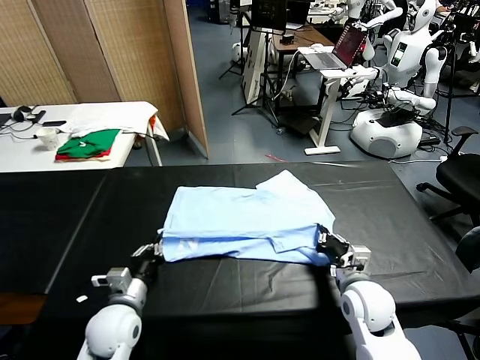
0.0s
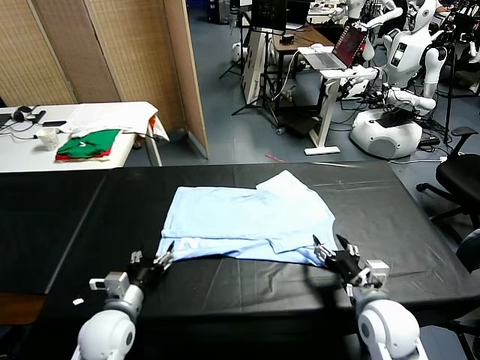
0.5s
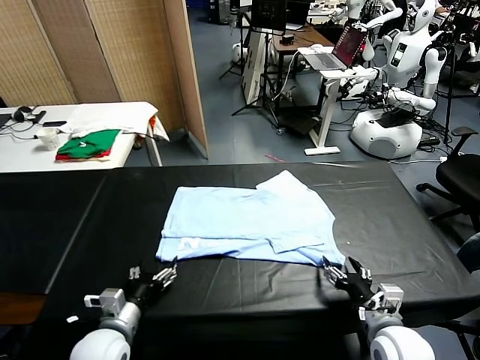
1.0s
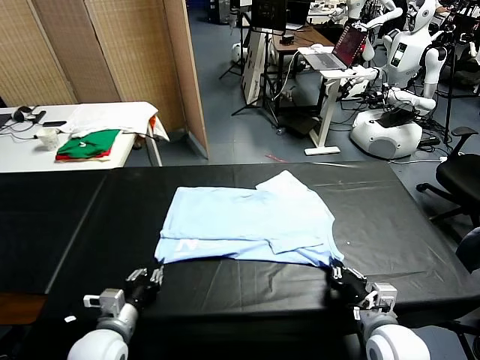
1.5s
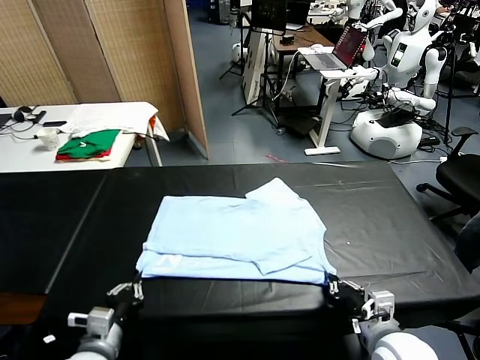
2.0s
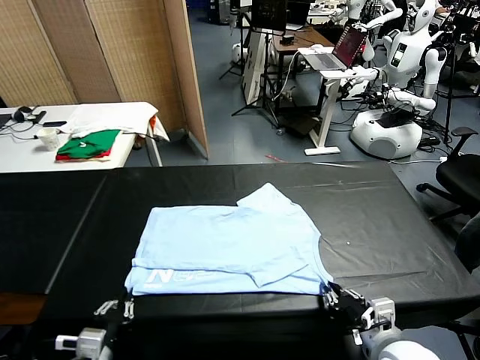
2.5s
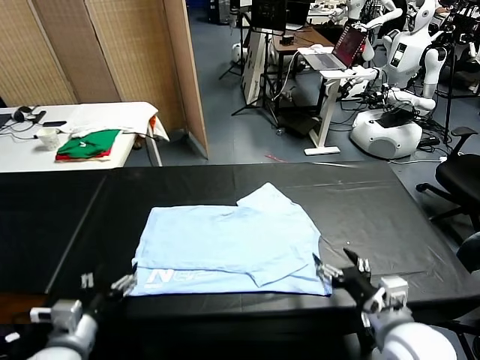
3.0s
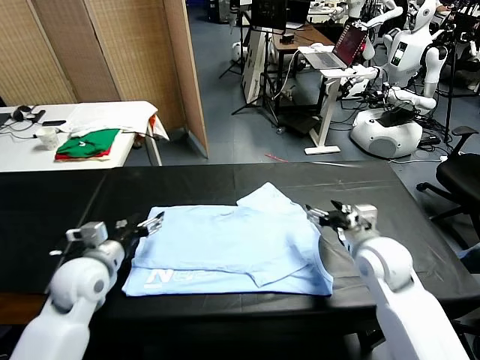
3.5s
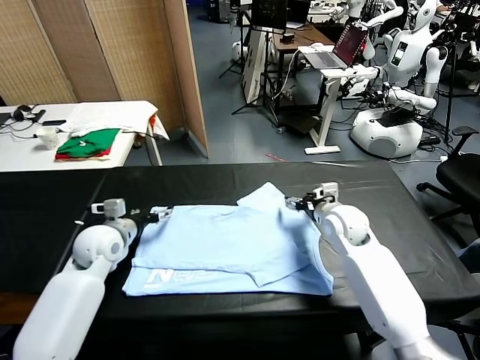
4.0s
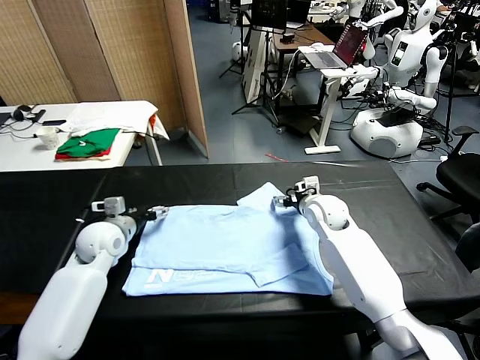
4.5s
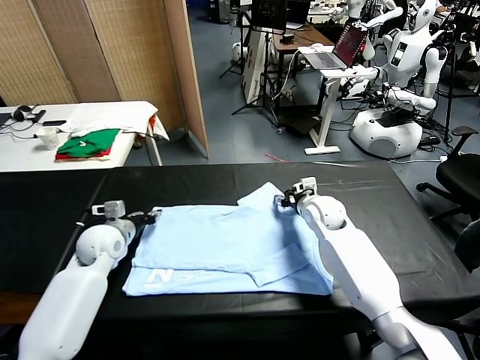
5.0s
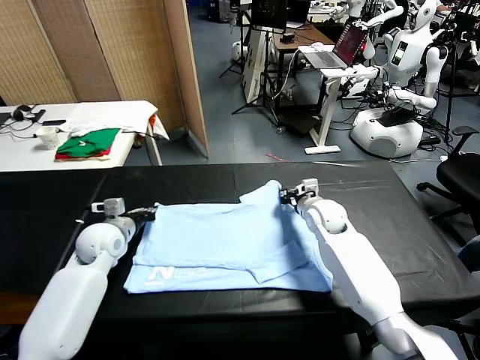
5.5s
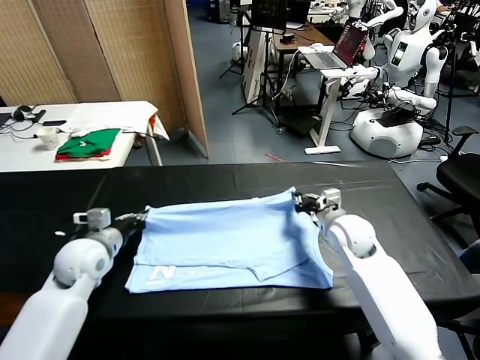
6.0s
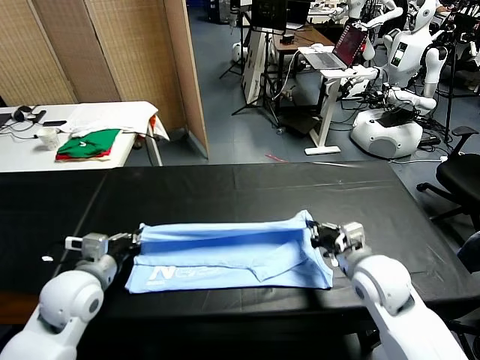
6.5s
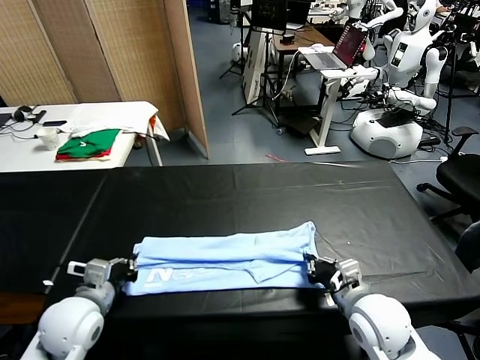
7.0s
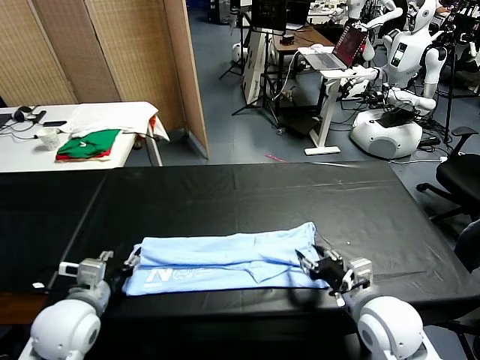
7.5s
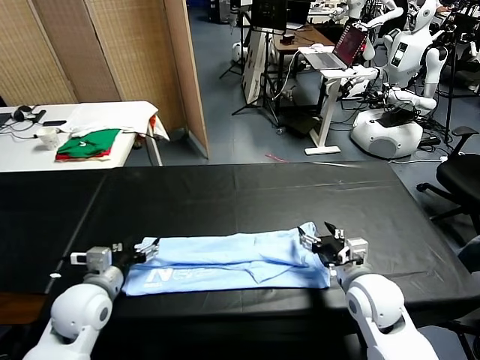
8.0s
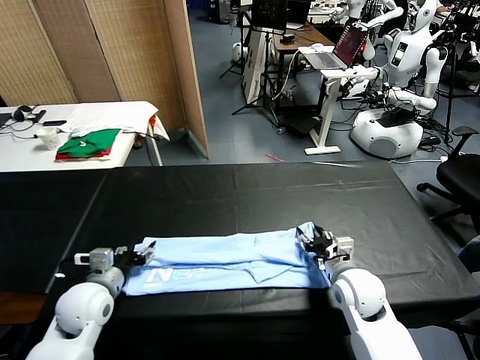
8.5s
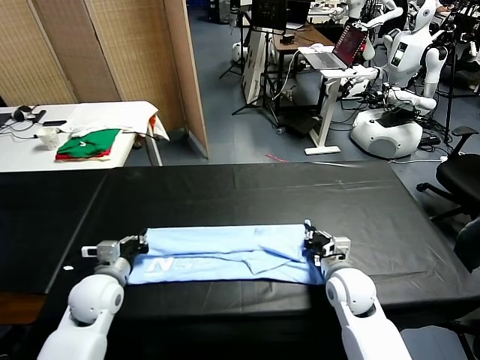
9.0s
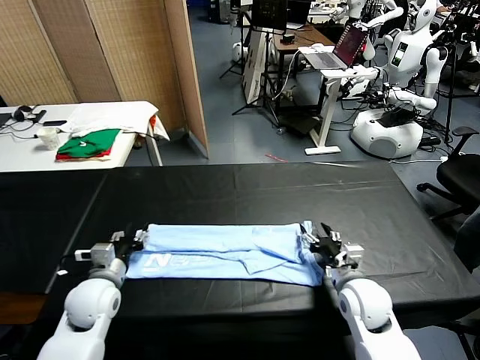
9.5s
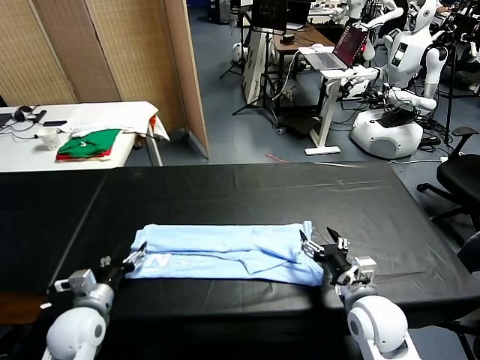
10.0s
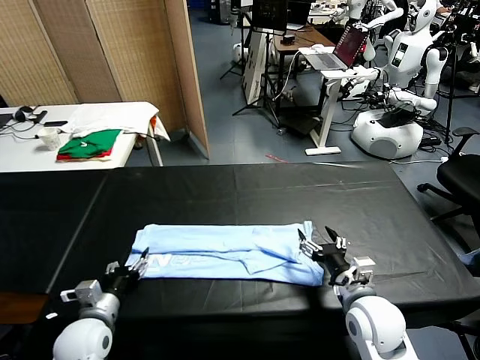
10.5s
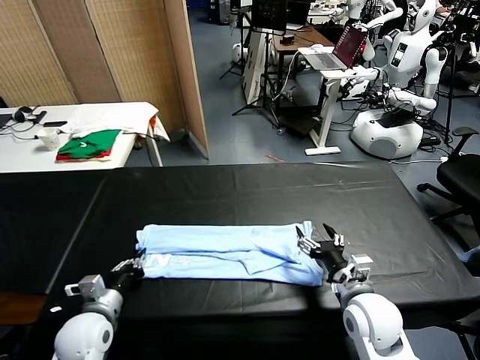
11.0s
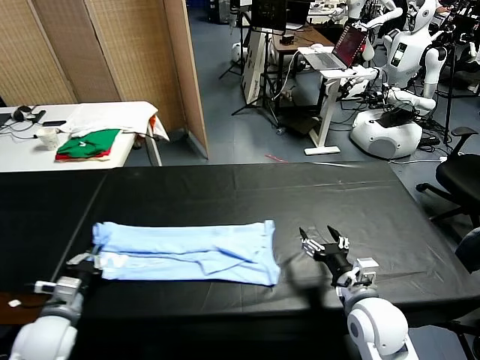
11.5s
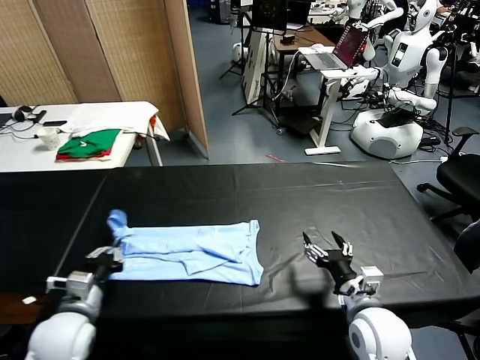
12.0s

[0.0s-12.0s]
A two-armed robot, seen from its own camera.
Task of the whole recording: fold and organize the clothes.
Step, 1.0s to 2.5s: Drag the clothes downward with both gripper.
Step, 3.0s to 5.0s: use both grippers simultaneously to clamp the upper edge of the clothing fabric.
Step, 5.5s to 7.5s: use both grippers to drag the upper edge of the fabric backward and fold it over the lower edge.
Step, 8.0s to 11.0s: use the left gripper to clamp the left edge of the fabric.
0.0s to 2.0s: Both grippers travel together backward, about 10 cm. The right gripper closes its fingers. The left gripper opens and closes again.
2.0s to 4.0s: The two grippers go approximately 30 cm forward. The right gripper opens up. The left gripper opens its fingers.
4.0s to 6.0s: The grippers both shift backward by some 10 cm. The left gripper closes. The right gripper closes its fingers.
6.0s to 8.0s: The left gripper changes place by approximately 5 cm, and opens its fingers; the right gripper shifts roughly 5 cm backward, and opens up.
8.0s to 10.0s: The right gripper moves backward, some 5 cm, and closes and opens again, while the left gripper shifts about 5 cm downward, and closes, then opens again.
10.0s to 12.0s: The left gripper shifts some 5 cm upward, and closes.

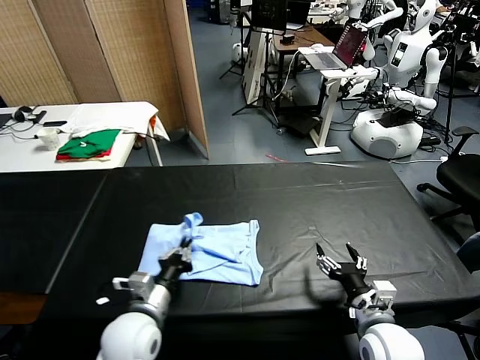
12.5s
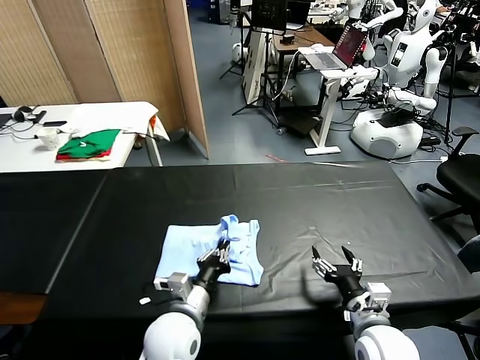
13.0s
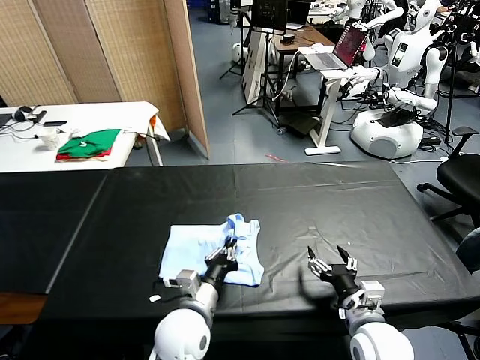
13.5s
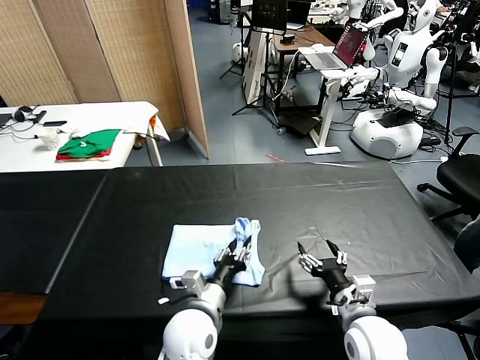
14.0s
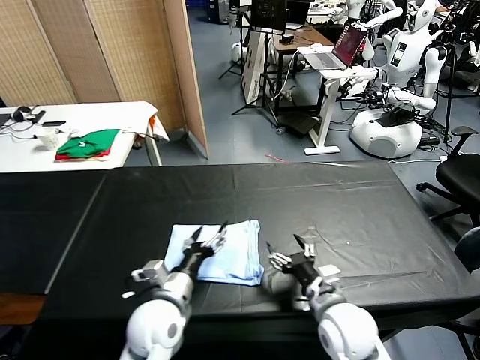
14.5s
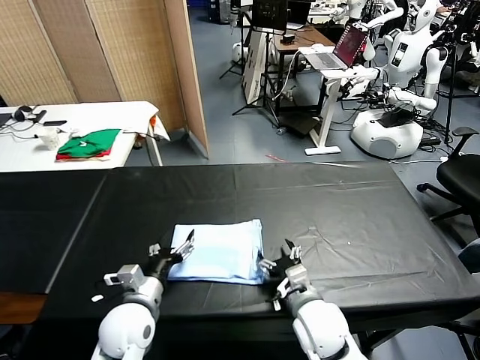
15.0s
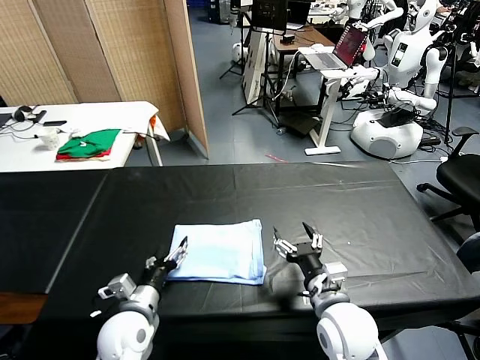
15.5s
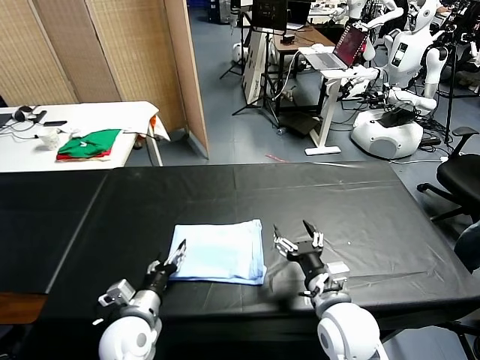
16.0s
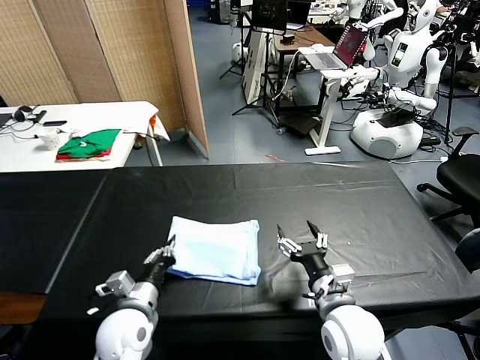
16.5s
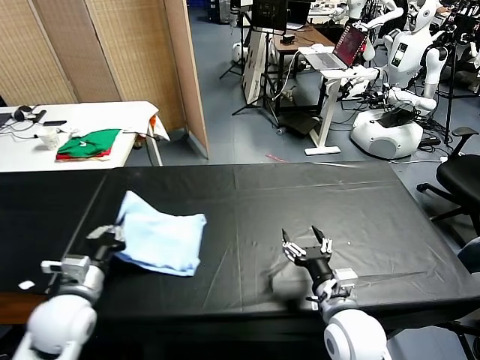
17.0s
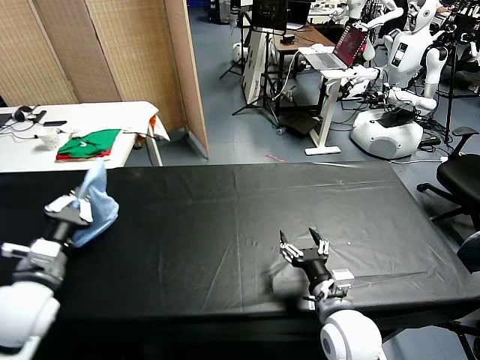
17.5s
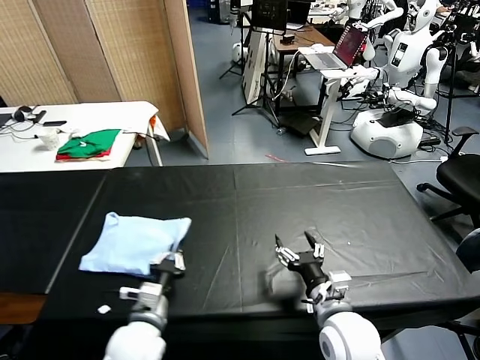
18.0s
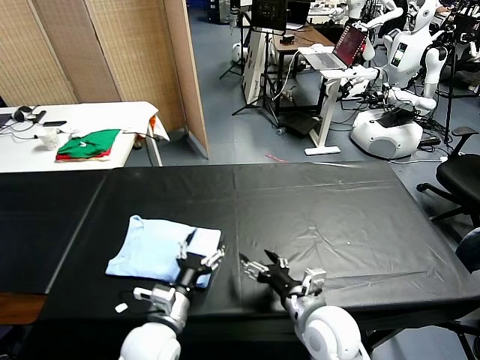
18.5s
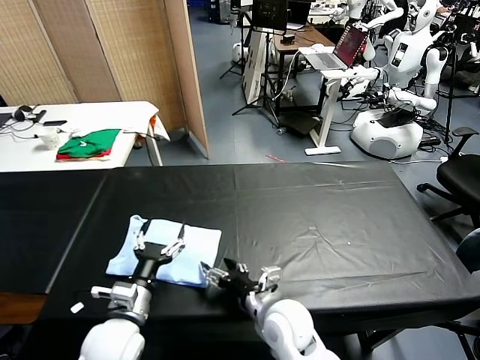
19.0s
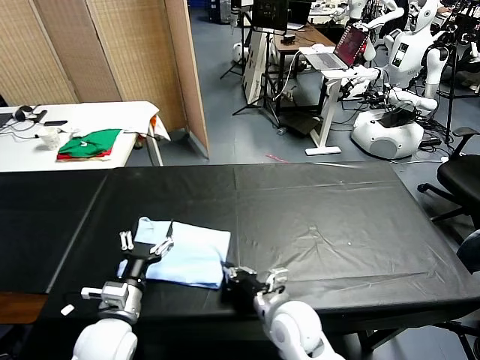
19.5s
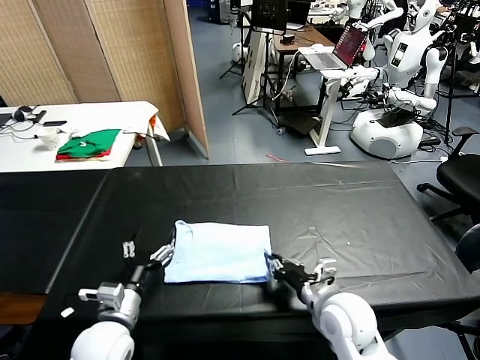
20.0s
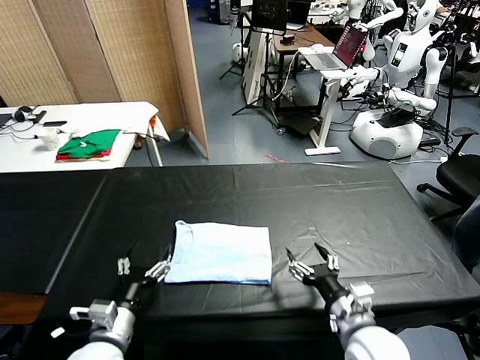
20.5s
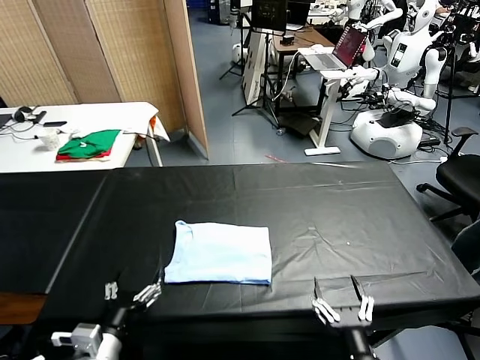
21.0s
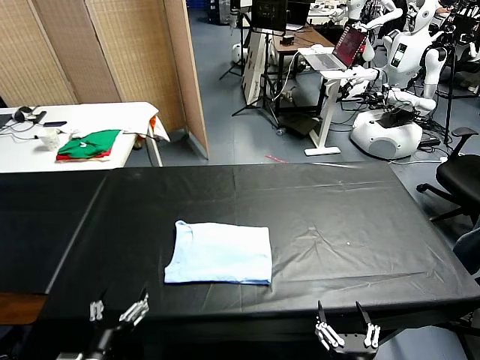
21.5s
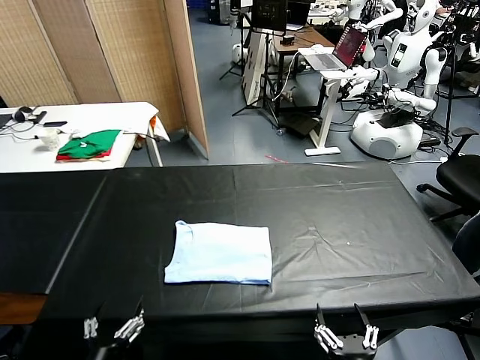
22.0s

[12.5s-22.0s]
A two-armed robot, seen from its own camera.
Task of the whole recording: fold and organize the clothes.
Step, 12.5s to 14.0s: use the left gripper to drag the left edge of the fabric to the left and folds it over the right edge.
Step, 14.5s to 18.0s: Flip the folded clothes over with left gripper.
Step, 18.5s to 20.0s: Drag the clothes to the center of the table.
12.5s to 14.5s: The left gripper travels to the right and back again, some 10 cm each way, and opens. The right gripper moves to the left, about 10 cm.
14.5s to 16.5s: The left gripper moves to the left, some 5 cm, and closes.
16.5s to 18.0s: The left gripper moves about 10 cm to the left and comes back.
18.0s to 20.0s: The left gripper heads to the left, covering some 5 cm, and opens. The right gripper travels to the left and back again, about 10 cm each way, and closes.
20.0s to 22.0s: The two grippers go about 20 cm backward. The right gripper opens up.
